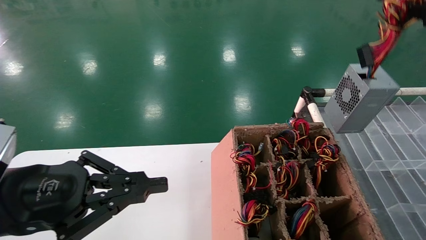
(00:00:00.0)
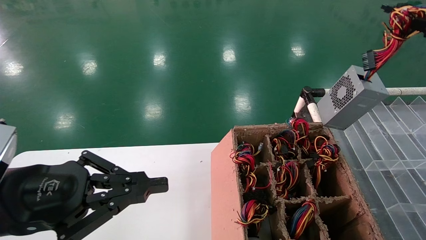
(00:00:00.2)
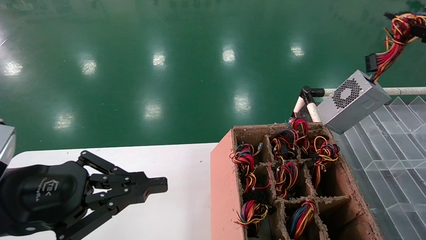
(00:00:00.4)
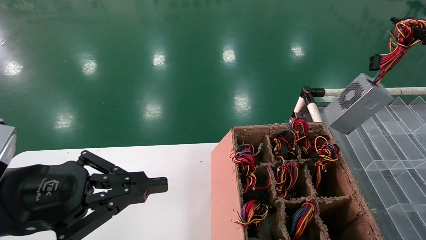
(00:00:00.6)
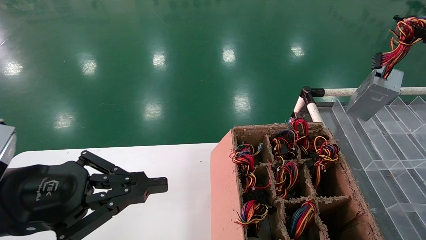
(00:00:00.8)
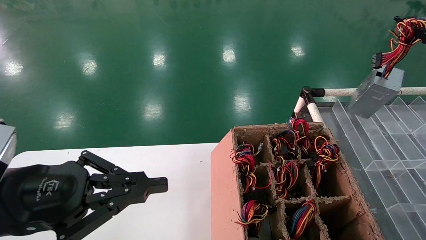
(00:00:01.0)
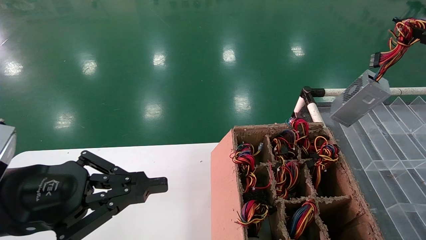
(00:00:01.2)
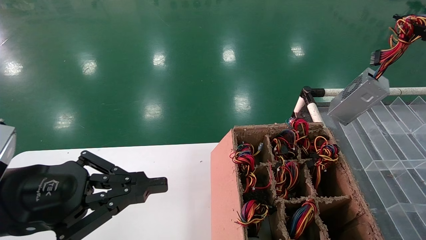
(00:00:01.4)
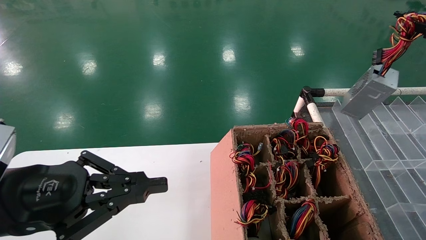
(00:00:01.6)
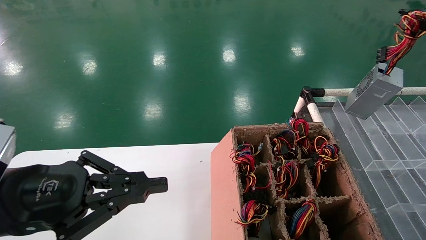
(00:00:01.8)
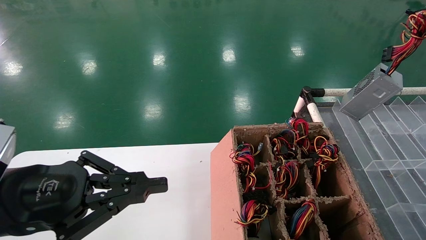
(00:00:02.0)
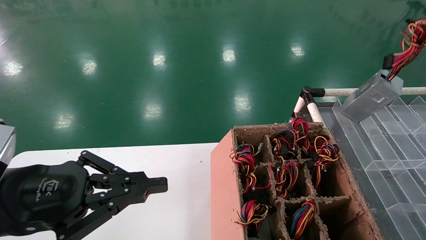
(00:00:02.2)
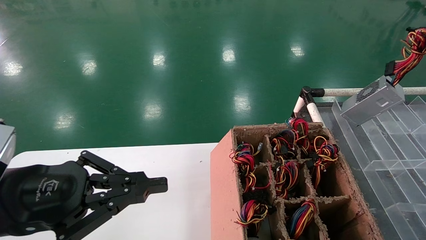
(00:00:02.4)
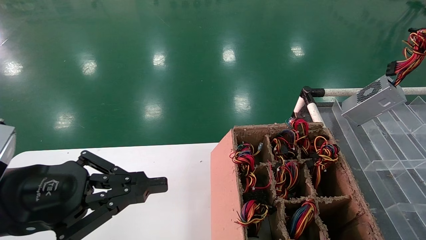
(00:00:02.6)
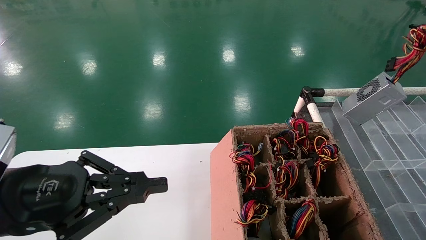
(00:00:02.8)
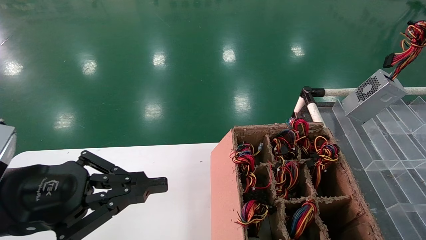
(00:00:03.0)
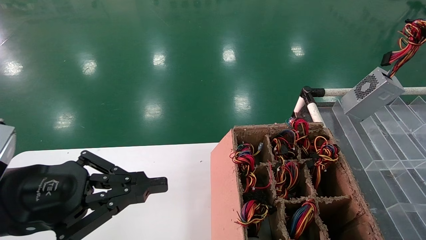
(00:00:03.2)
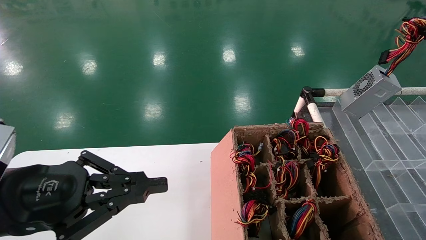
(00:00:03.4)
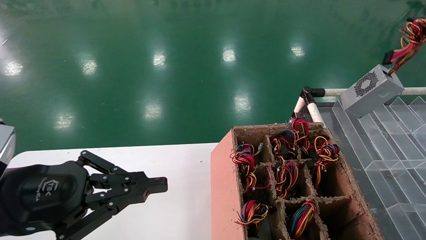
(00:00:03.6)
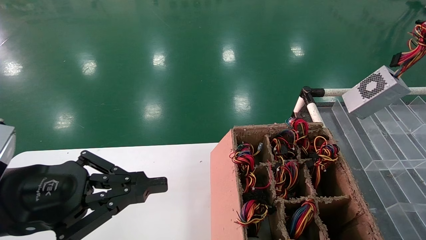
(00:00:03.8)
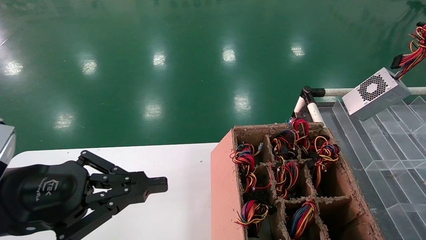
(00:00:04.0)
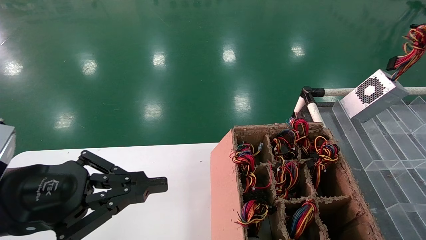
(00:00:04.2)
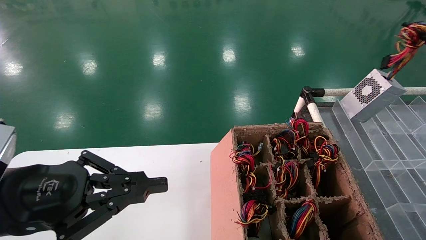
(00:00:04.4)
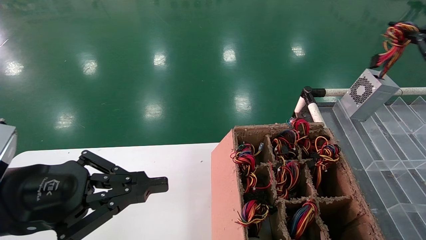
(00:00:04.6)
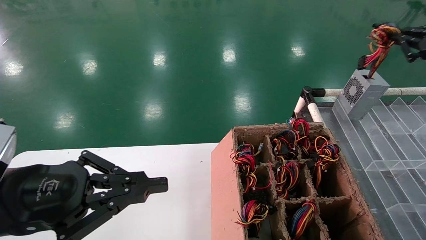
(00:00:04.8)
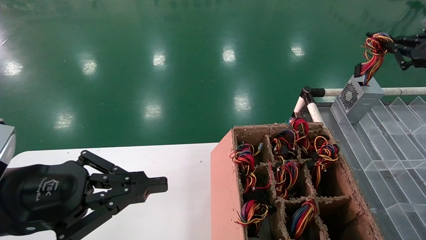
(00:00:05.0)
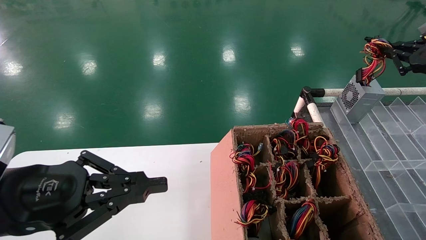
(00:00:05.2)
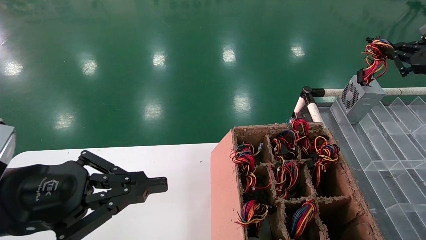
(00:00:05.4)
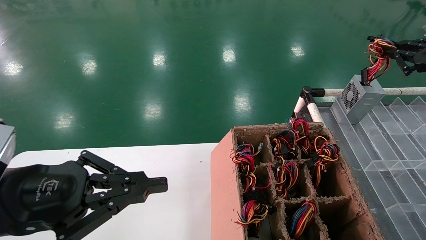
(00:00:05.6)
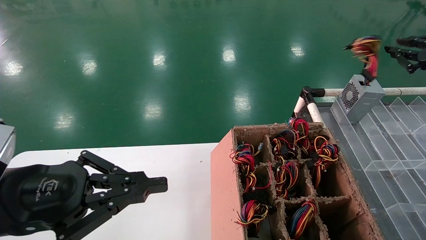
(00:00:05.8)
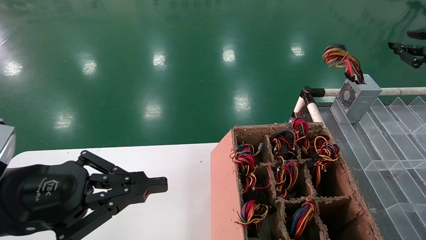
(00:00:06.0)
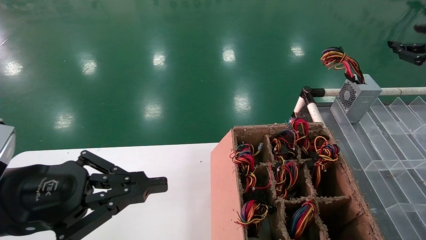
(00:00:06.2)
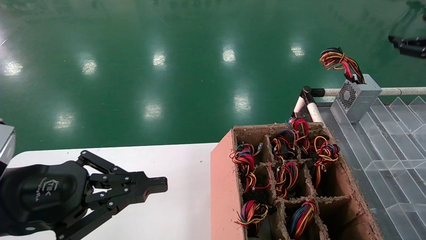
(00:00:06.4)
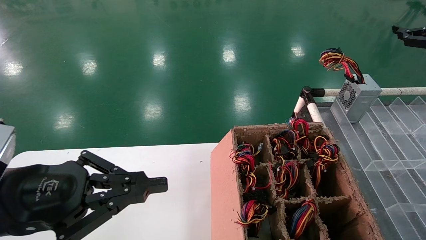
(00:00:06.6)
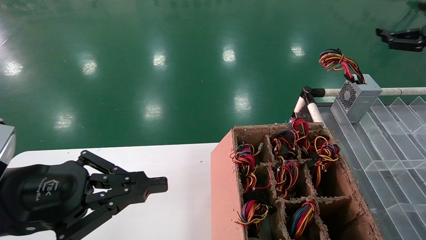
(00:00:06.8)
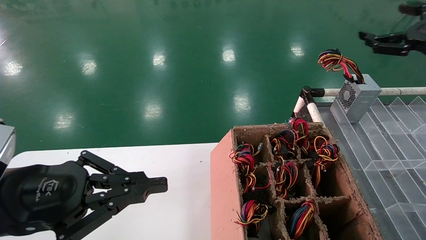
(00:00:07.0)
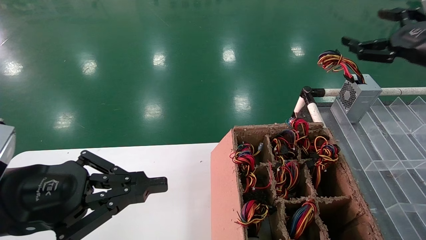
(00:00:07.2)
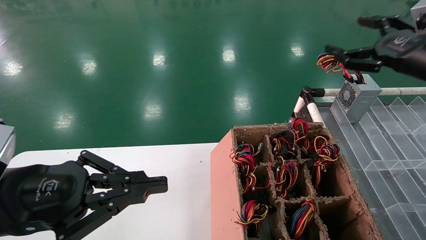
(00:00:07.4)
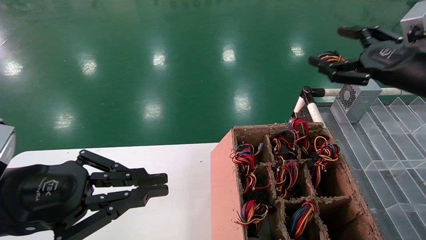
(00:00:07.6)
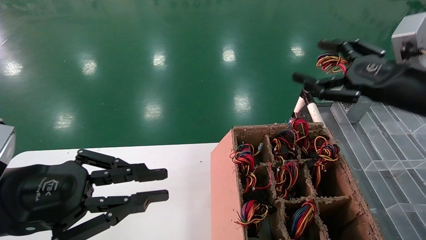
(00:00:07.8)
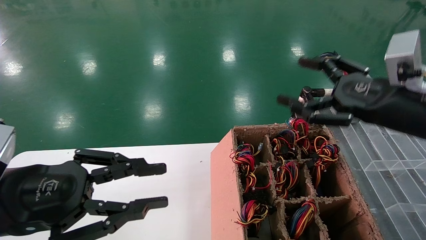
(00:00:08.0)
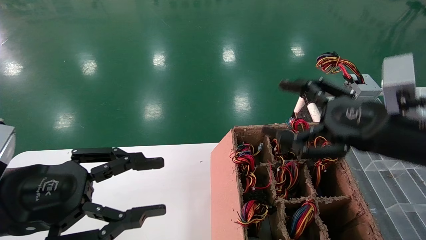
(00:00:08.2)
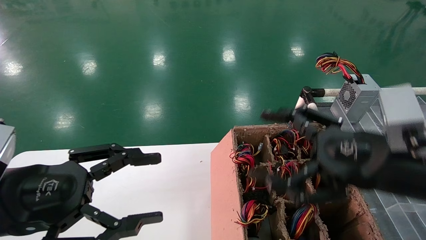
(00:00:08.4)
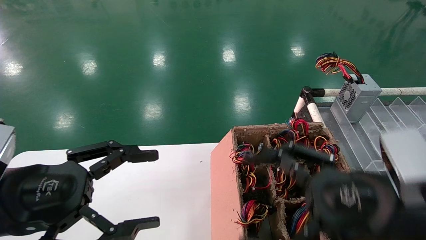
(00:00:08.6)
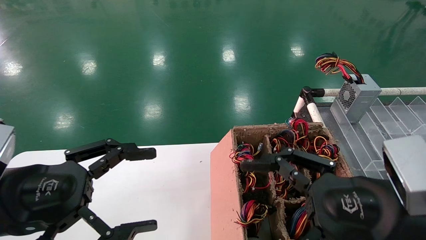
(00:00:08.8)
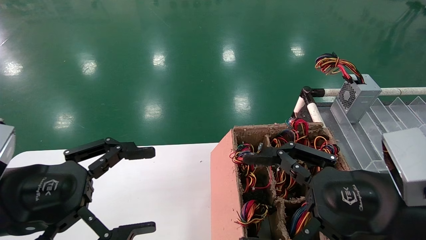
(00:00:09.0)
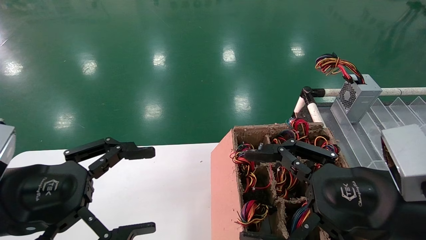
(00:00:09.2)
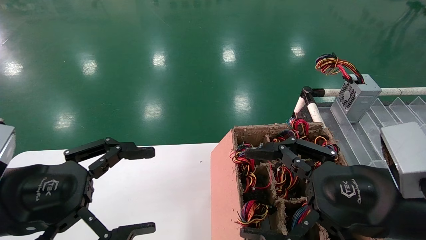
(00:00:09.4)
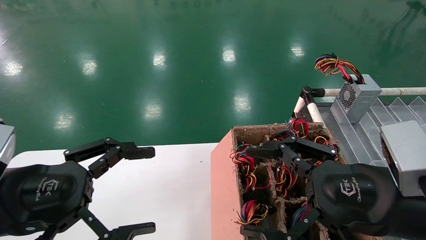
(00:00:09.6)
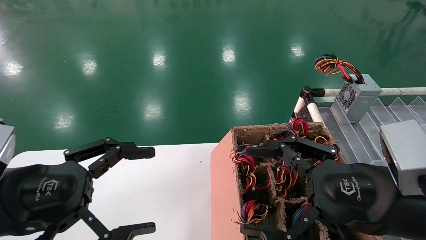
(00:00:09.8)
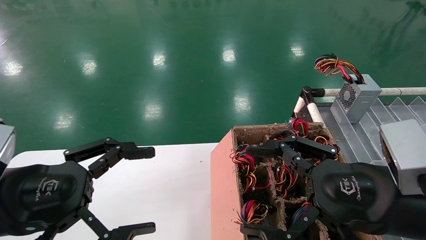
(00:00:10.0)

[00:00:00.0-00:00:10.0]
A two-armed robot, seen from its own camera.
Step, 00:00:00.0 to 00:00:06.0: Place the main unit power supply in the designated area.
00:00:00.0 to 00:00:01.4: The right gripper travels forward and to the right by roughly 10 cm.
00:00:01.4 to 00:00:04.2: The grippers make only small movements.
00:00:04.2 to 00:00:05.8: The right gripper ends up approximately 5 cm from where it was.
00:00:05.8 to 00:00:07.2: The right gripper moves to the left, roughly 5 cm, and opens its fingers.
00:00:07.2 to 00:00:08.6: The left gripper opens up. The right gripper goes roughly 25 cm to the left, backward and downward.
00:00:08.6 to 00:00:10.0: There are only small adjustments of the grippers.
